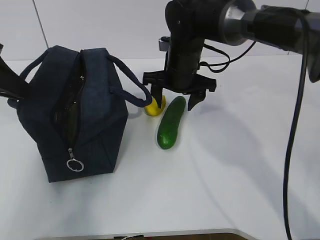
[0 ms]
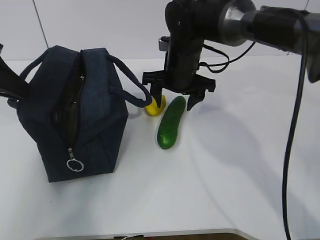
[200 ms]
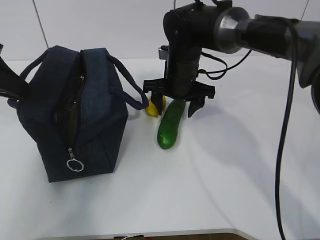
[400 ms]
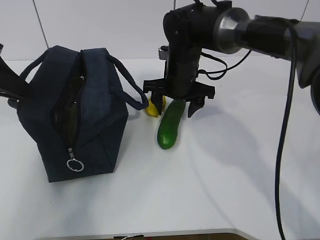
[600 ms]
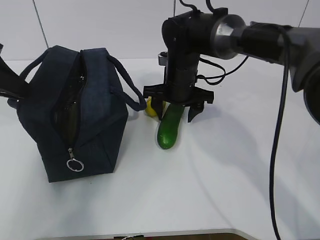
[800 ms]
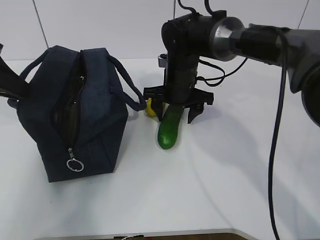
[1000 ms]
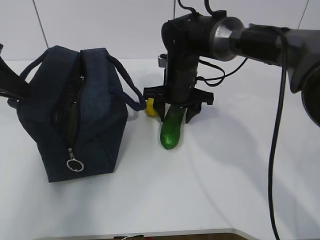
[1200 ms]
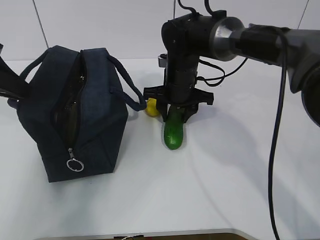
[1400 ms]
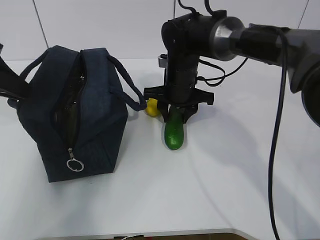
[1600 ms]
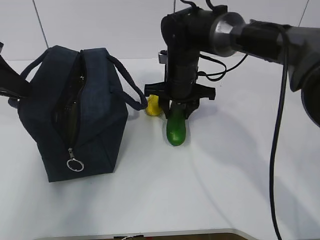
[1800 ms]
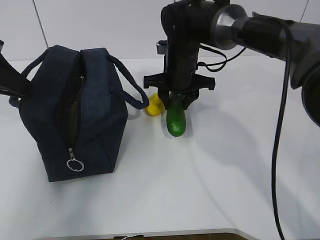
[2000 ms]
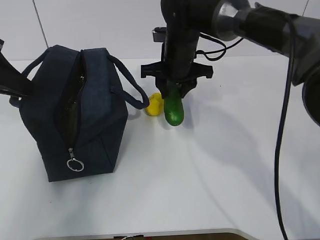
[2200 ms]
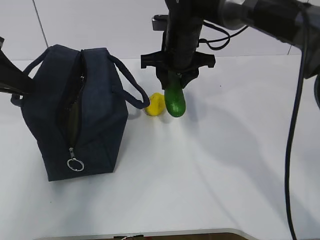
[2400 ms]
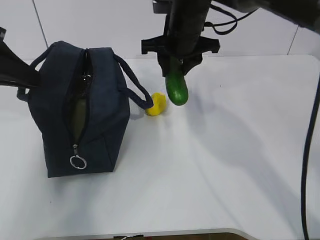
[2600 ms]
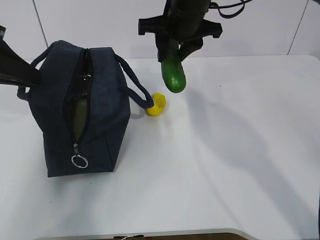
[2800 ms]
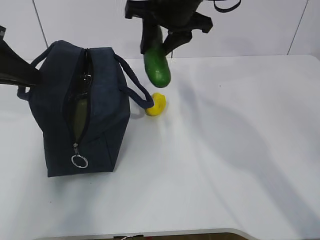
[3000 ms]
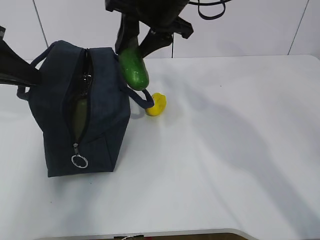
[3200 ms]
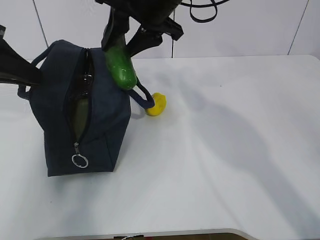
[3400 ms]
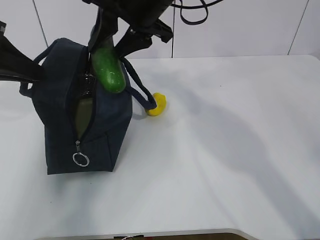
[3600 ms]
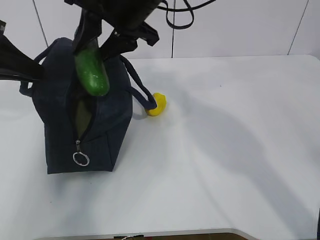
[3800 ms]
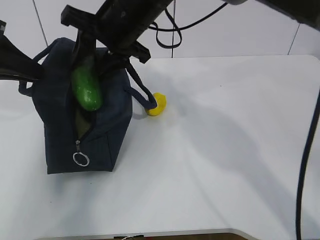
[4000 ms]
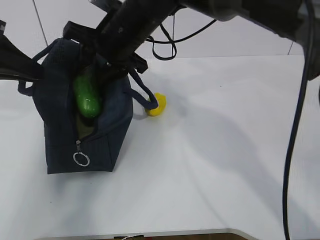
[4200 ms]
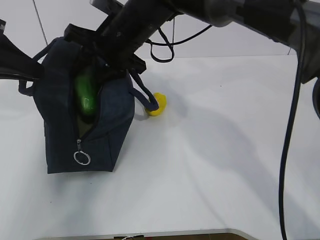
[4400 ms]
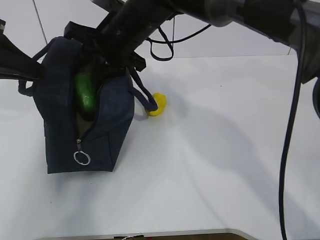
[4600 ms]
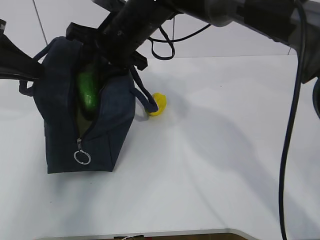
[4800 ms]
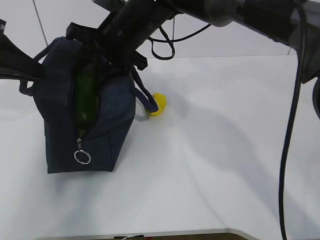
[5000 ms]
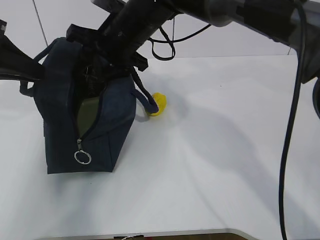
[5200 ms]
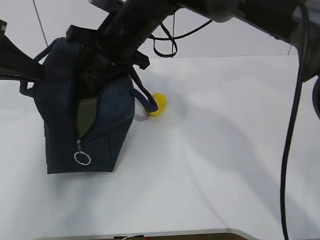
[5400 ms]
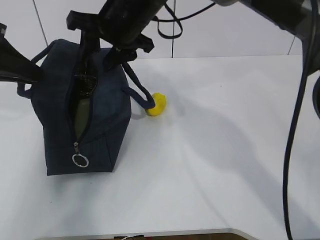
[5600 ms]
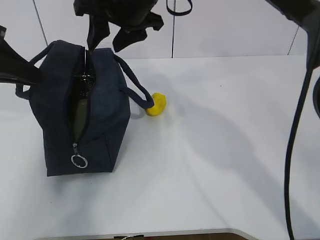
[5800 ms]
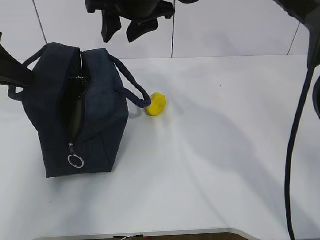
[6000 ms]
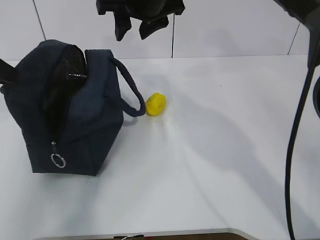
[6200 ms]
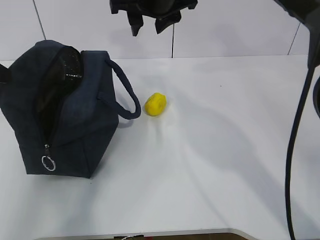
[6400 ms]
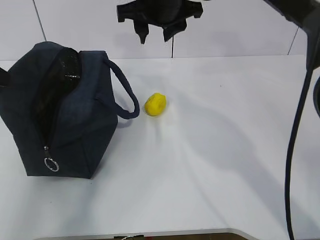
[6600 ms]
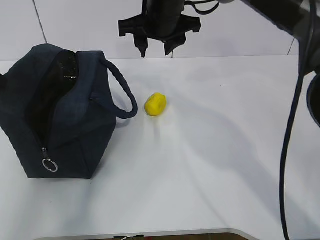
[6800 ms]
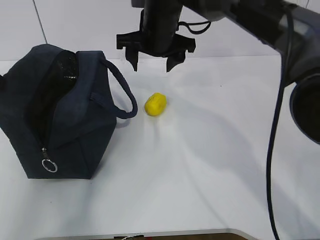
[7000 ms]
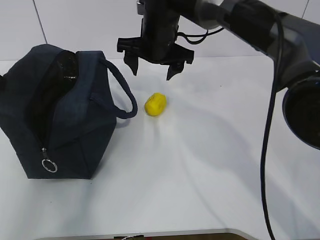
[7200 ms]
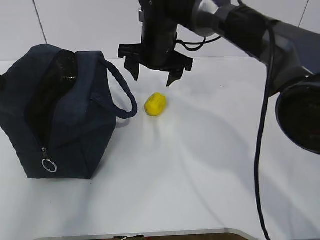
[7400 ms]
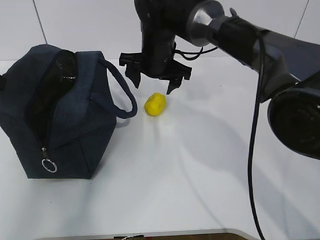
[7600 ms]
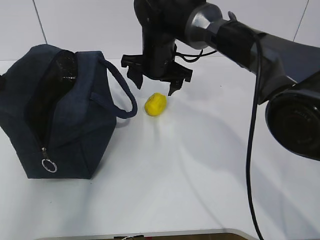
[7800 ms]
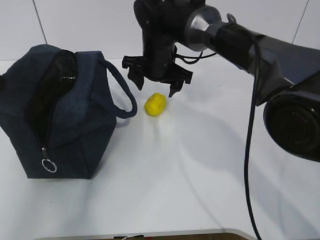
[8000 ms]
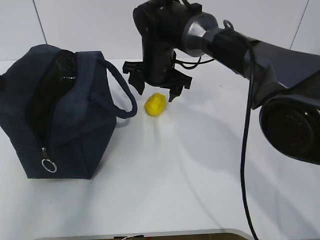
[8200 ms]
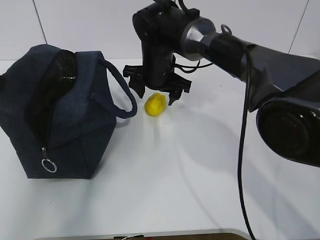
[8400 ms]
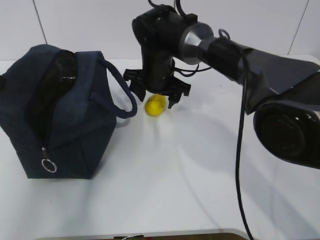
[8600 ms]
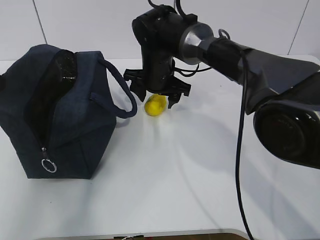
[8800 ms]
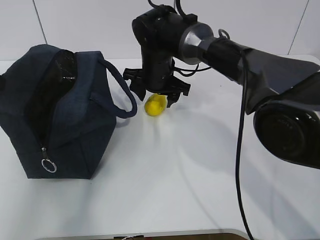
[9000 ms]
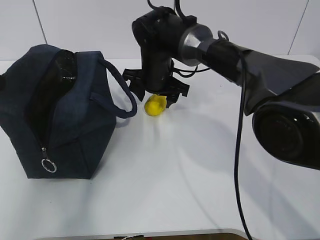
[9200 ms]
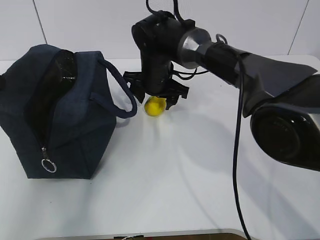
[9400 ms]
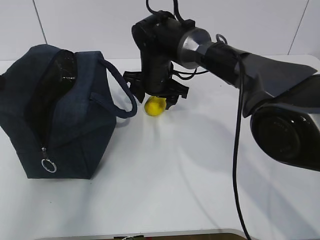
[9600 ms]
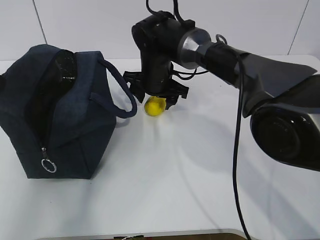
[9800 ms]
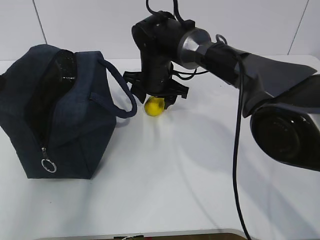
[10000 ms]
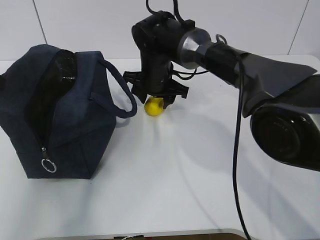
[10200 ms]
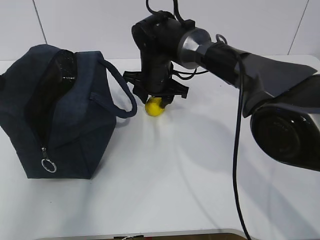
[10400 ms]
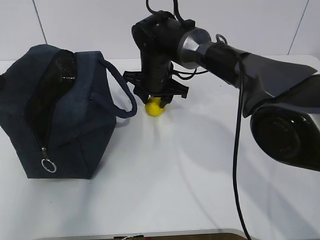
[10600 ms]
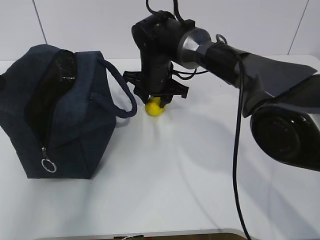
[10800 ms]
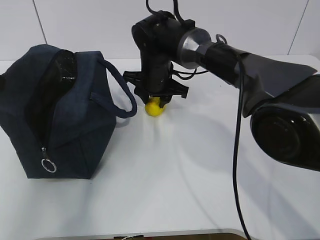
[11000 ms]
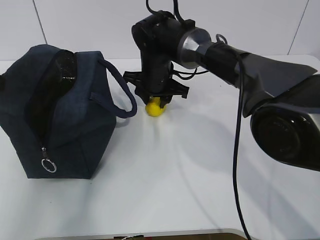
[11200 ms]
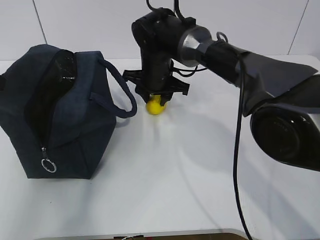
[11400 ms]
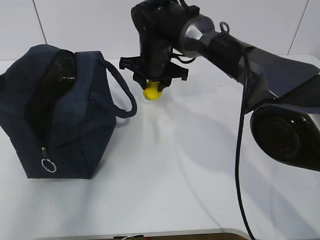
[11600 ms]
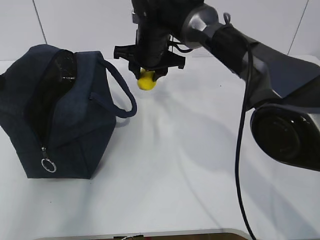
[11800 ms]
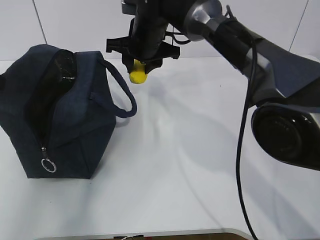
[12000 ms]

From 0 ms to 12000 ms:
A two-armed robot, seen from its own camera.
Step, from 400 ms to 4600 ms: Grab the lemon with your right hand.
Step, from 4800 ms to 7800 ms: Secure the lunch bag with your left hand.
Step, from 8000 ms to 10200 ms: Grab the lunch bag with your right hand.
From 0 ms to 1600 ms: The right gripper closes its fingers.
From 1600 ms to 3000 ms: The right gripper goes approximately 15 cm upward.
From 3000 ms to 4400 ms: The right gripper travels to the left and downward by about 10 cm.
From 4400 ms to 6000 ms: The right gripper is displaced upward by some 5 cm.
From 6000 ms to 7600 ms: The right gripper moves downward, about 10 cm.
From 7600 ms to 9000 ms: There are only small adjustments of the grippers.
From 9000 ms to 10400 ms: Both grippers stay put.
From 10400 ms to 12000 ms: The right gripper shifts some 5 cm upward.

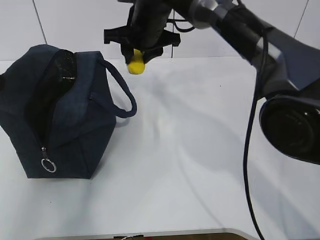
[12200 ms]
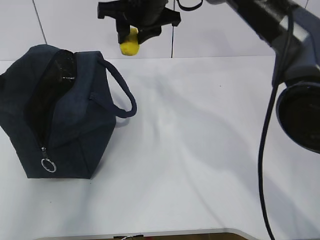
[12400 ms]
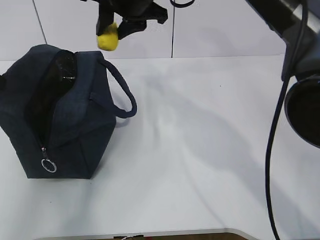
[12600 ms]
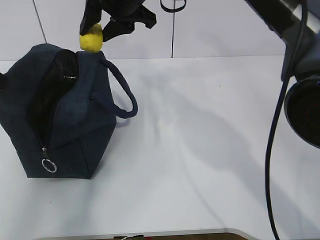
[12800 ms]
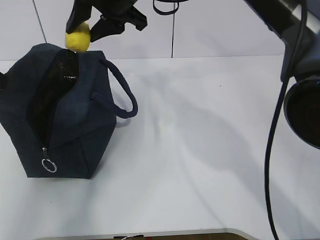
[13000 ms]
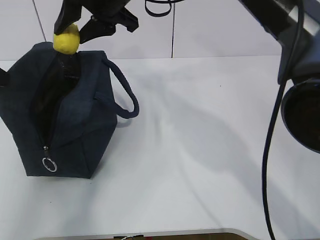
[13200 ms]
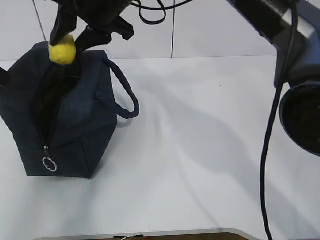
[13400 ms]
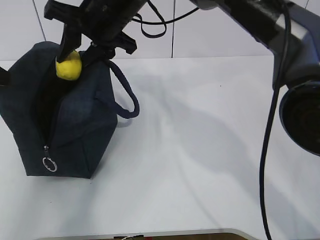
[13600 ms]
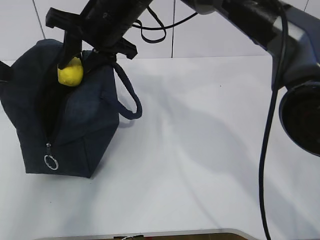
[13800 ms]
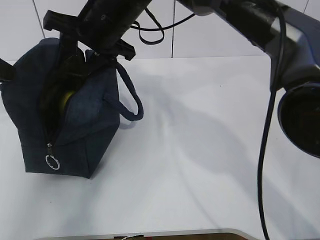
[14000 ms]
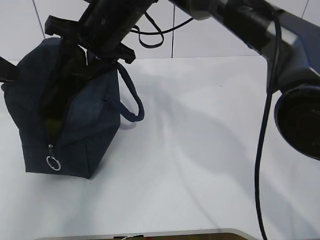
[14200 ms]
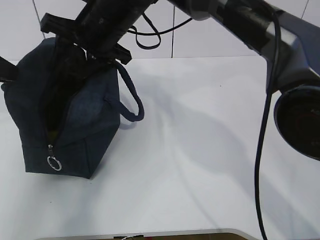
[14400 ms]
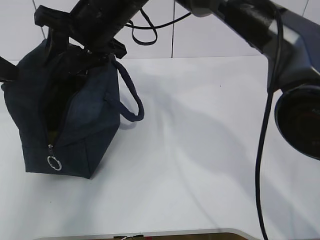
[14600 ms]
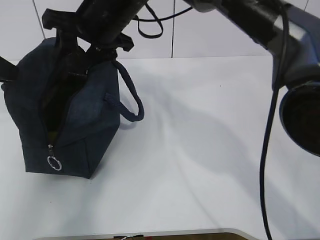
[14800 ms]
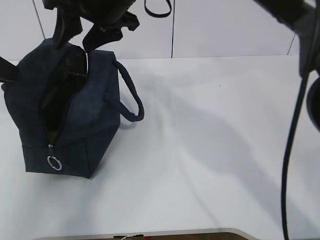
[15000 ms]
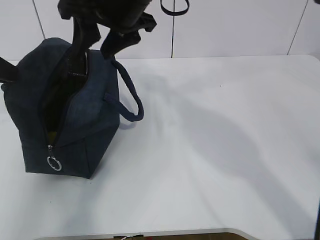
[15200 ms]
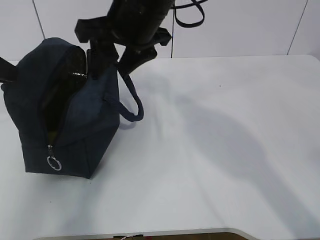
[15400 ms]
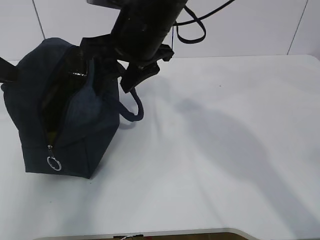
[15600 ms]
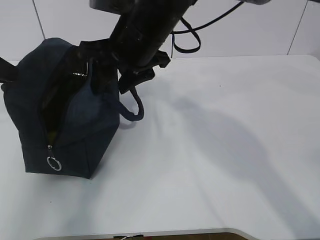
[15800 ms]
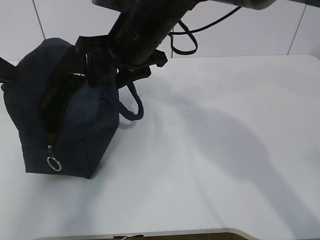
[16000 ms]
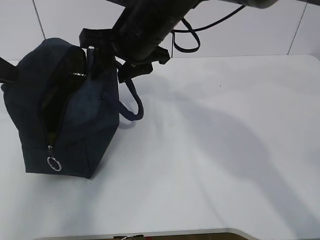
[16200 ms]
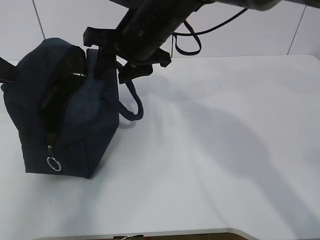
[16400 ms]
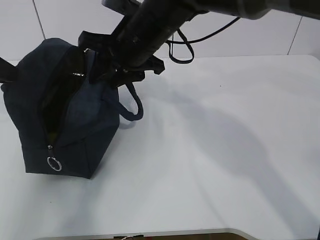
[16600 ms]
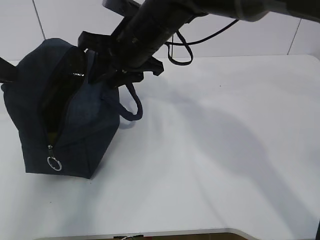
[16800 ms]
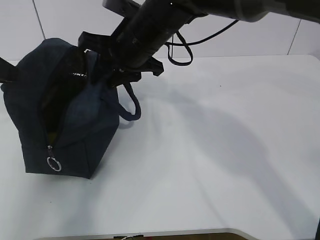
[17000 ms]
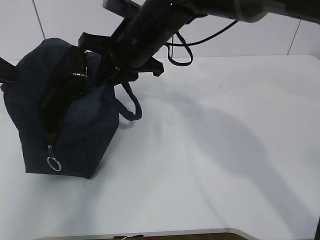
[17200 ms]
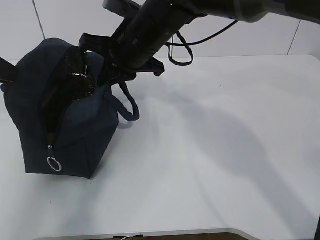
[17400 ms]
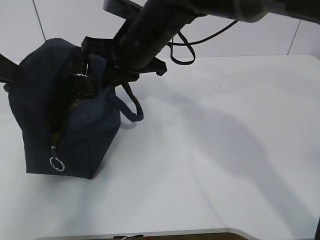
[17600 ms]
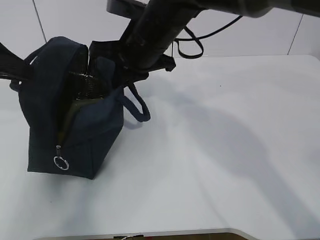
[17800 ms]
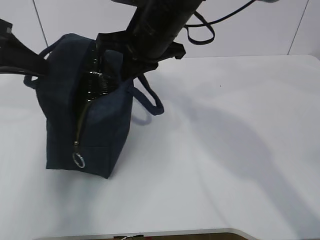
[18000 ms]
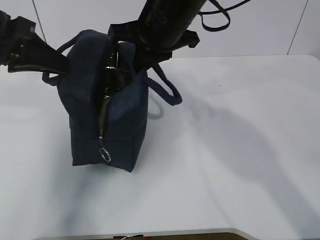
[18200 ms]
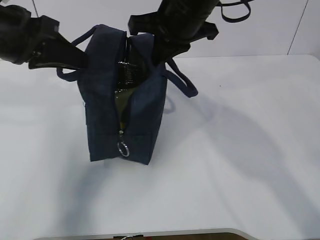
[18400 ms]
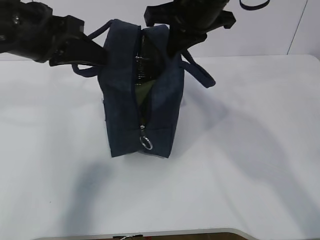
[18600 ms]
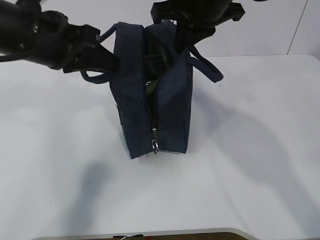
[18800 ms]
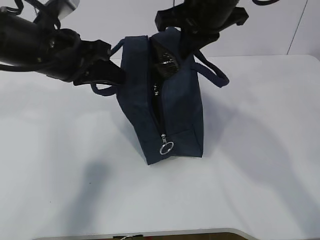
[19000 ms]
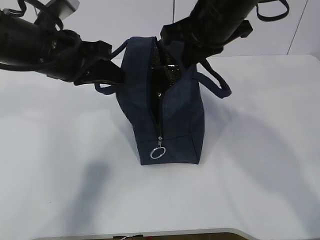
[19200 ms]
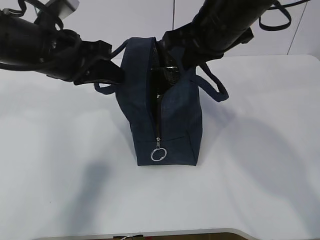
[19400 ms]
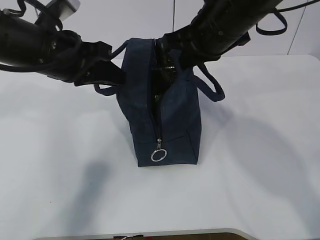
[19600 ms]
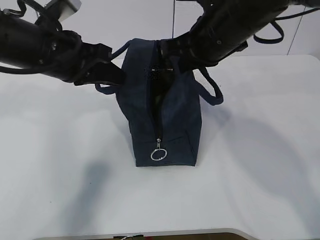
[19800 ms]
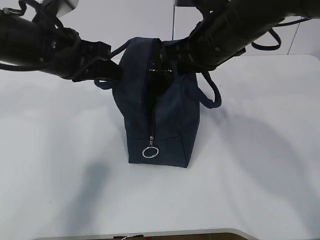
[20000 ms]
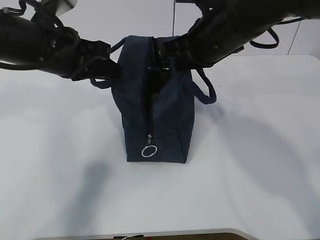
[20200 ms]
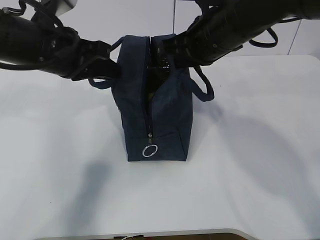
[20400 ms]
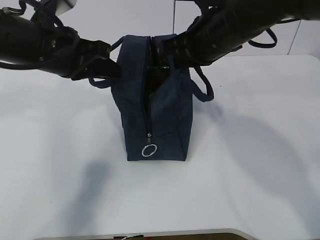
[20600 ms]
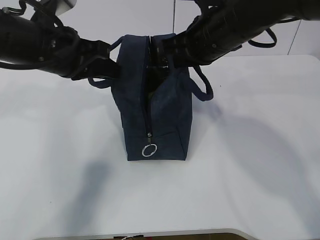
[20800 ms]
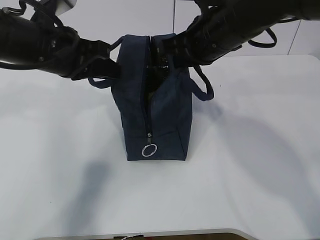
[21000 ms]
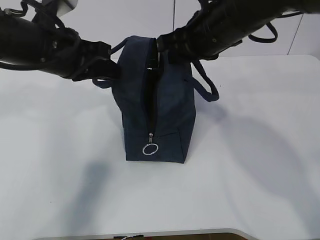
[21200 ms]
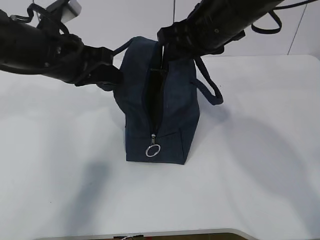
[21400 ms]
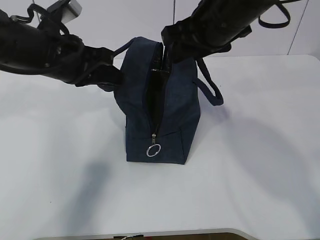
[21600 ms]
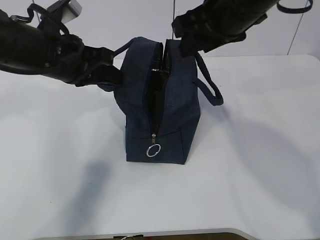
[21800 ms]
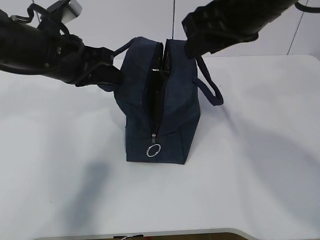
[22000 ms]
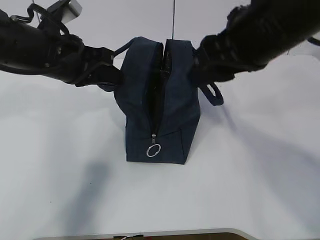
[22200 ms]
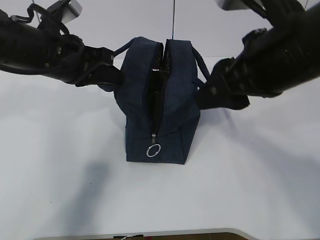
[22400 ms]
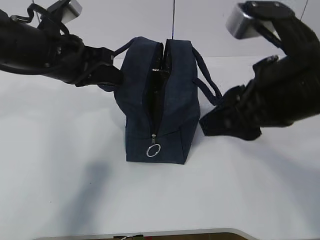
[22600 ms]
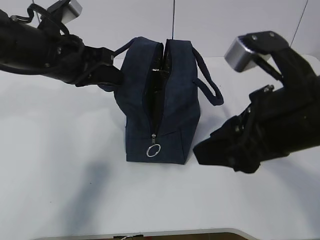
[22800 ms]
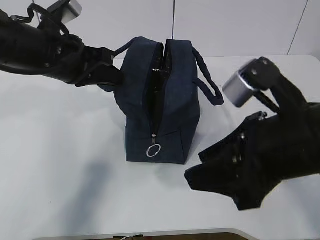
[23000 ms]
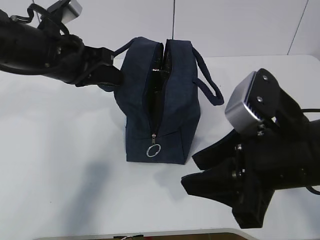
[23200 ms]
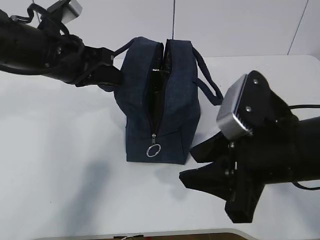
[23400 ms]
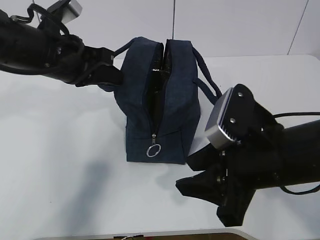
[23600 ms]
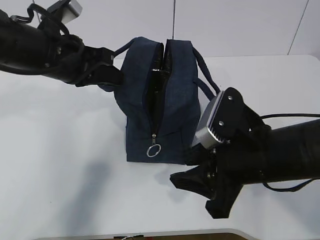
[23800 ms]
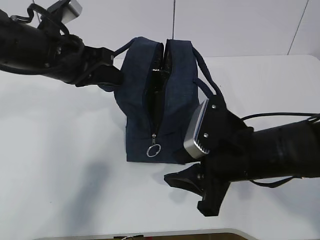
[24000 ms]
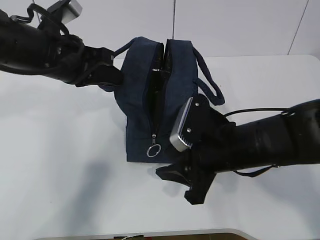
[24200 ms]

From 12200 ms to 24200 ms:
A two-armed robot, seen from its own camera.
Step, from 14000 ms to 20200 ms: Grab the lunch bag with your left hand.
From 12200 ms to 13800 ms: The right gripper travels backward by approximately 5 cm.
From 13800 ms to 15200 ms: The right gripper ends up roughly 5 cm from where it was.
From 15200 ms to 16600 ms: The right gripper is displaced downward by about 5 cm.
From 16600 ms to 18200 ms: The right gripper ends up approximately 5 cm from where it was, and closes up. Meanwhile the left gripper is displaced to the right by about 5 cm.
From 18200 ms to 19800 ms: Both grippers move to the right, approximately 10 cm.
From 19800 ms to 21200 ms: The right gripper opens up.
From 21200 ms to 22600 ms: The right gripper heads backward, covering some 15 cm.
From 22600 ms to 24200 ms: The right gripper is displaced downward by roughly 15 cm.
